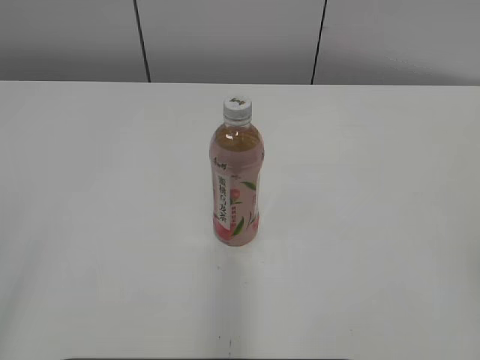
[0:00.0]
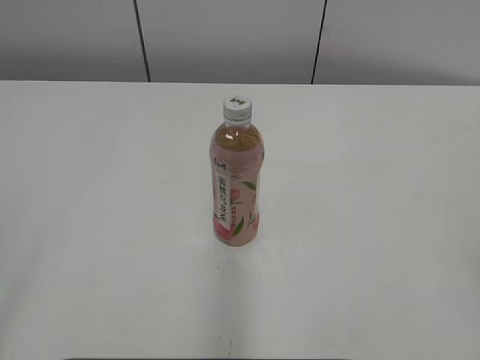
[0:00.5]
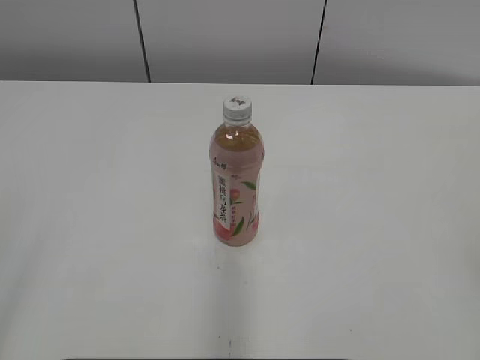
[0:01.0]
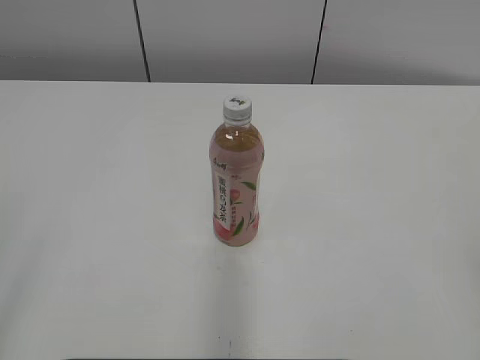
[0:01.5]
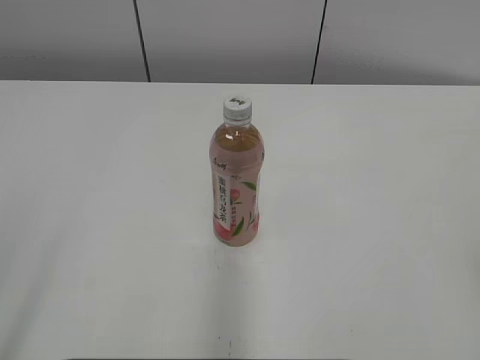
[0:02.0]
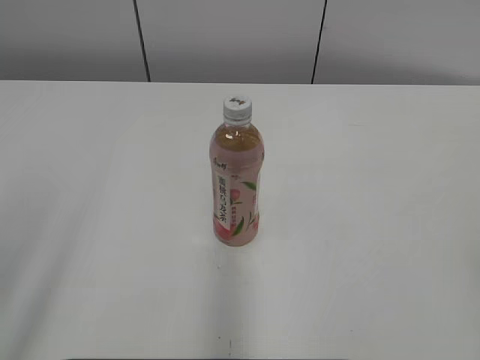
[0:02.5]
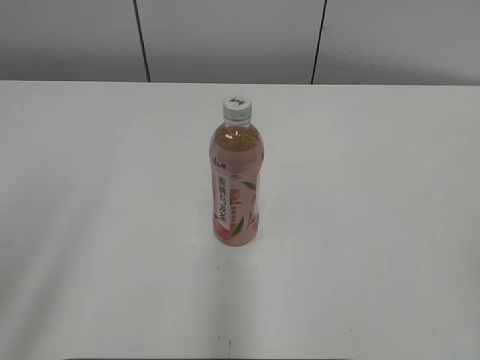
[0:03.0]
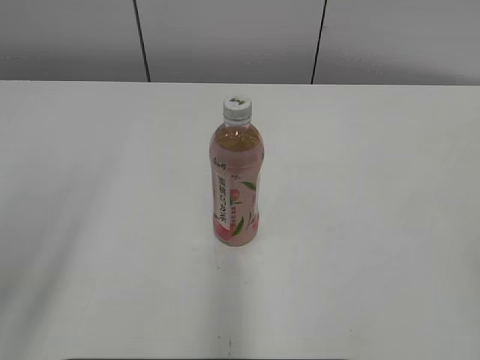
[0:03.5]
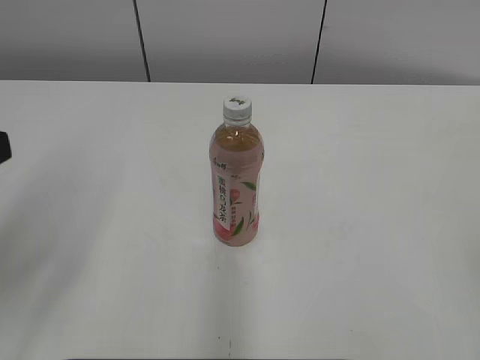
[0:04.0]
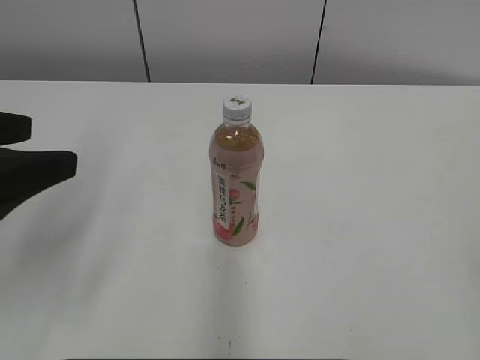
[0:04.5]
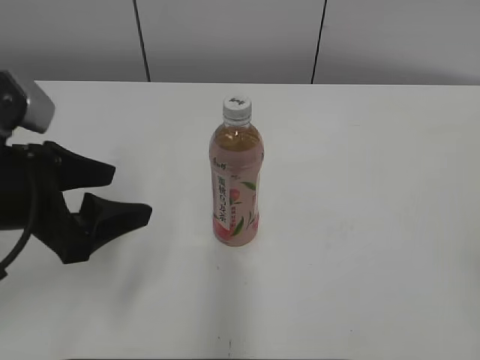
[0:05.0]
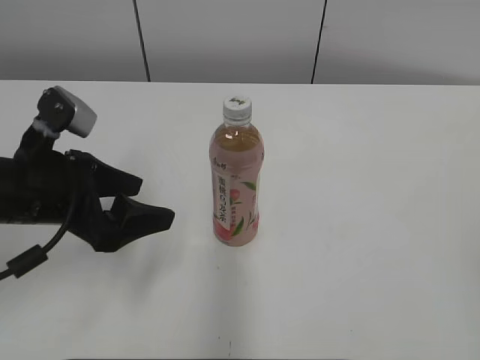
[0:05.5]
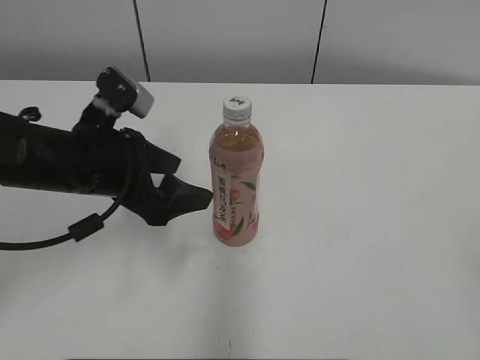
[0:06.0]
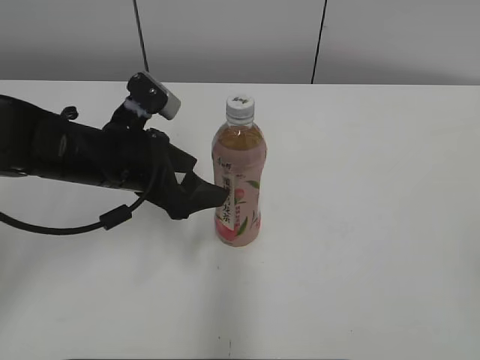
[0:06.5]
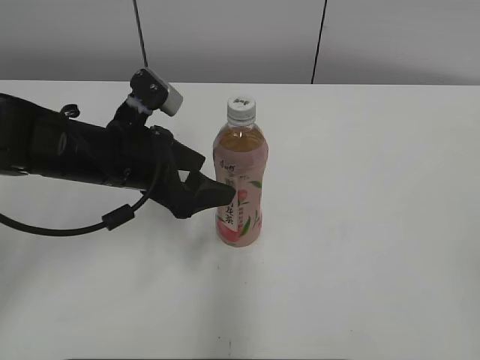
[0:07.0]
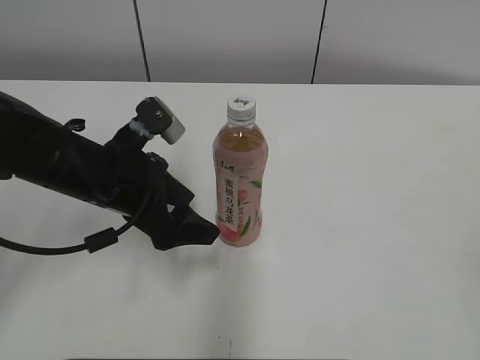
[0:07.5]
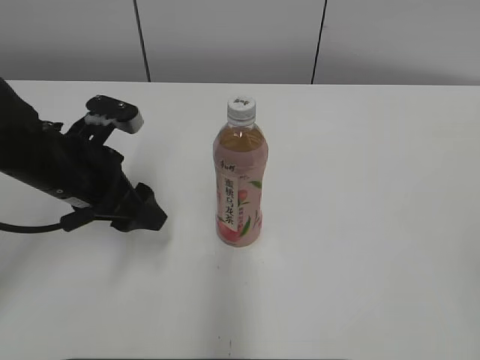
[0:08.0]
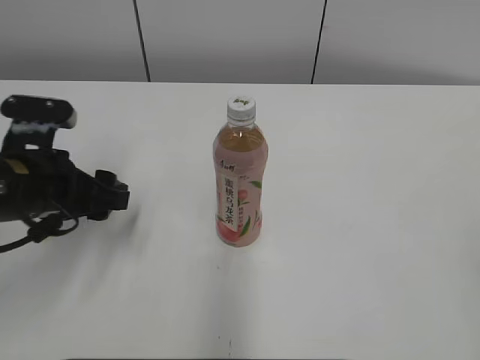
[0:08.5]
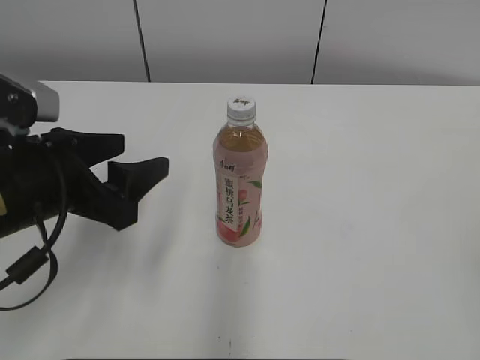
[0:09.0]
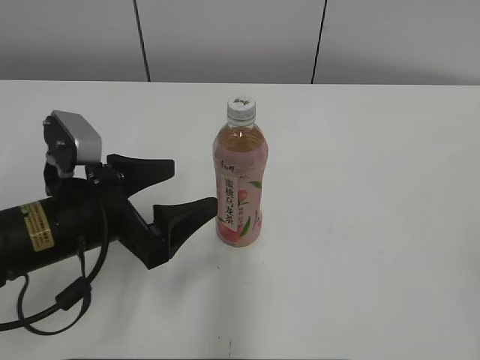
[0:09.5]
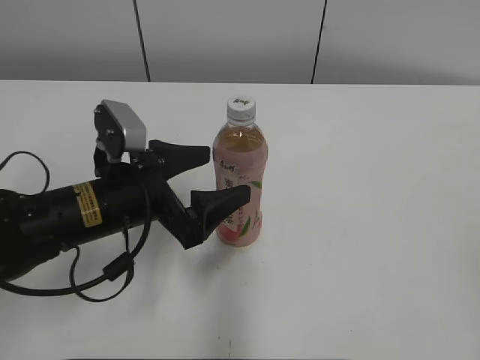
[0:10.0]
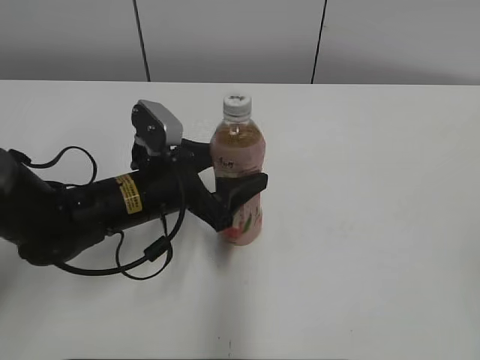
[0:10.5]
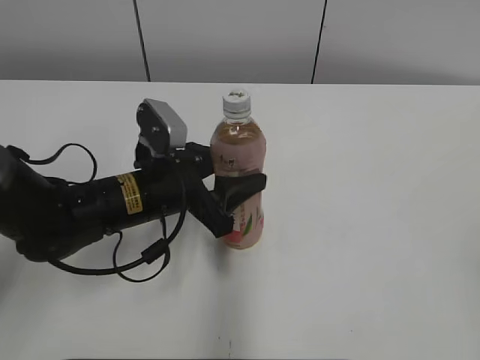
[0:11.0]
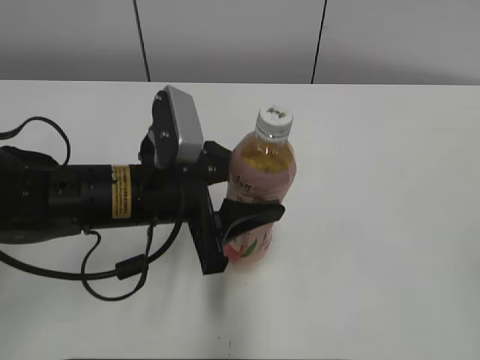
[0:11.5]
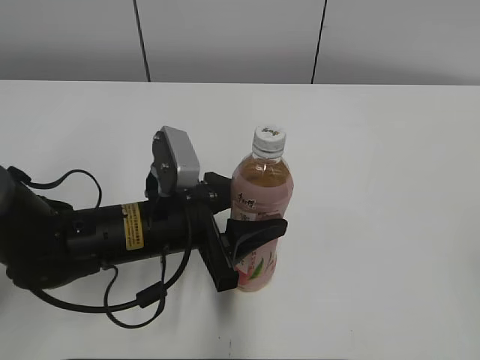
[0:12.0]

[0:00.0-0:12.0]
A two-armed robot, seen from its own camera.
Step, 0:00.0 to 0:11.0: Grab the Peach Oolong Tea with the left hand.
0:02.0 to 0:04.0: The left gripper shifts approximately 15 cm forward.
0:04.0 to 0:06.0: The left gripper is displaced forward, to the right and downward by some 20 cm, and opens its fingers.
0:08.0 to 0:10.0: The left gripper shifts by roughly 5 cm, and opens.
0:10.0 to 0:12.0: The left gripper closes its fingers.

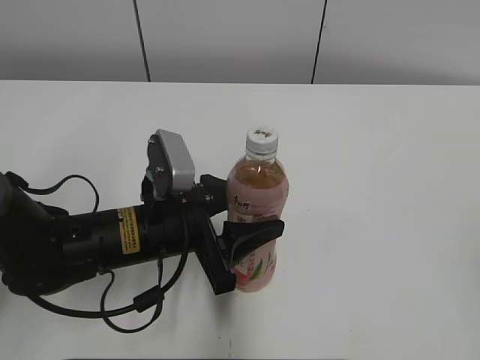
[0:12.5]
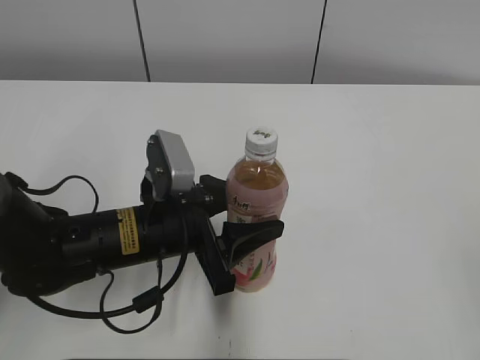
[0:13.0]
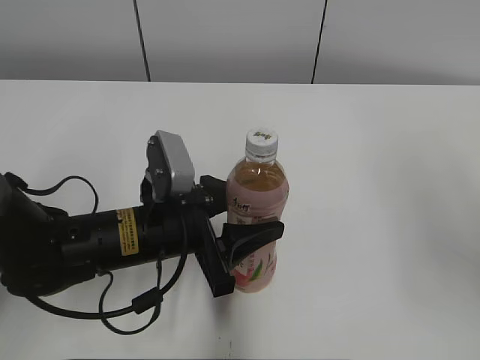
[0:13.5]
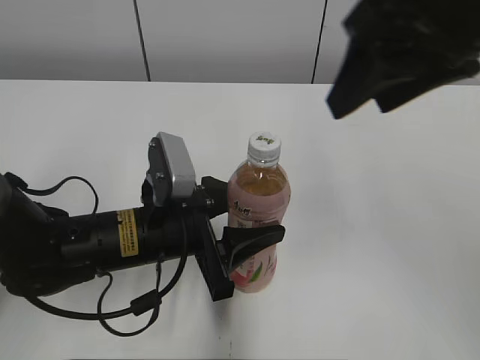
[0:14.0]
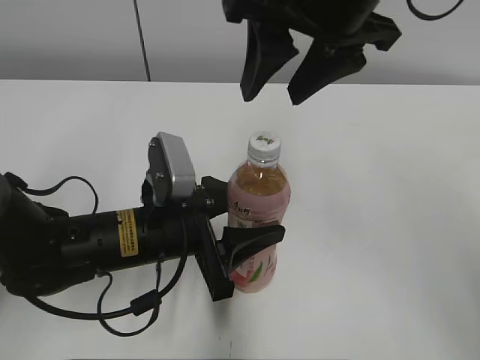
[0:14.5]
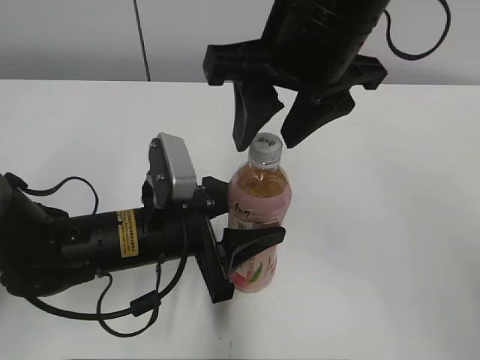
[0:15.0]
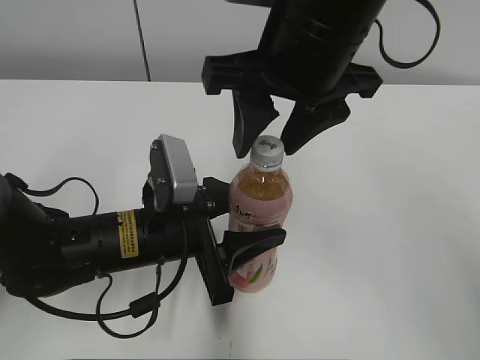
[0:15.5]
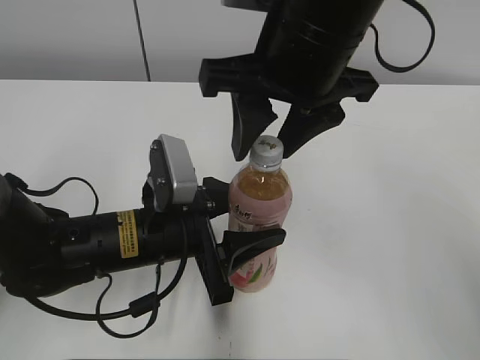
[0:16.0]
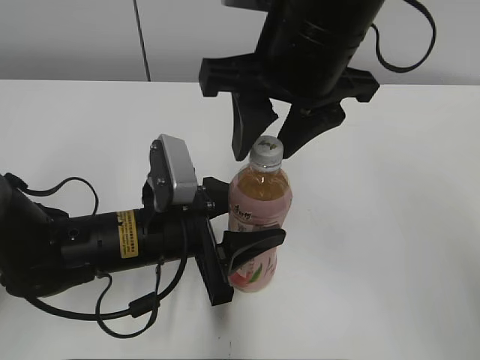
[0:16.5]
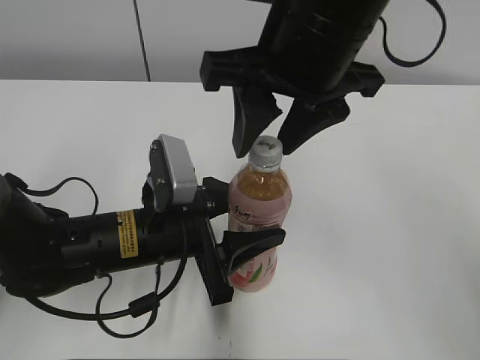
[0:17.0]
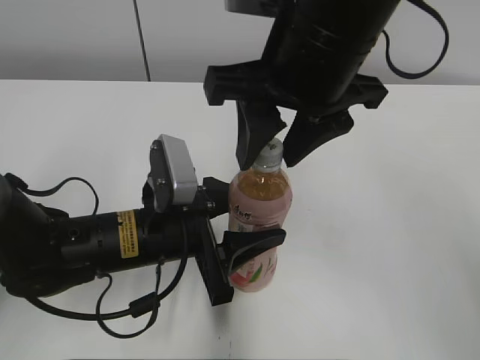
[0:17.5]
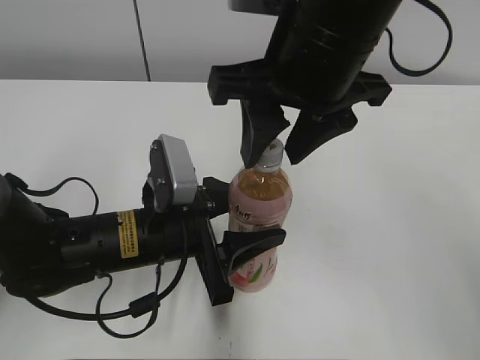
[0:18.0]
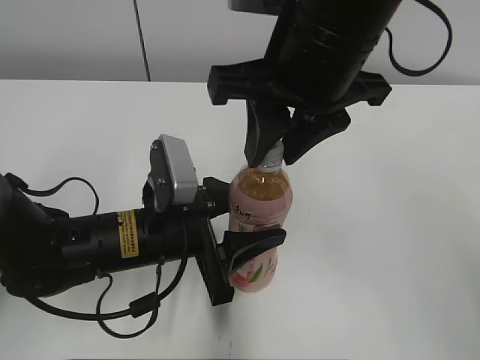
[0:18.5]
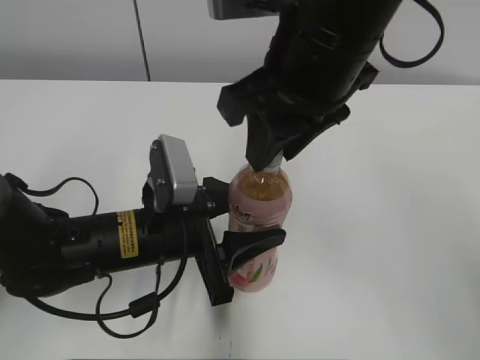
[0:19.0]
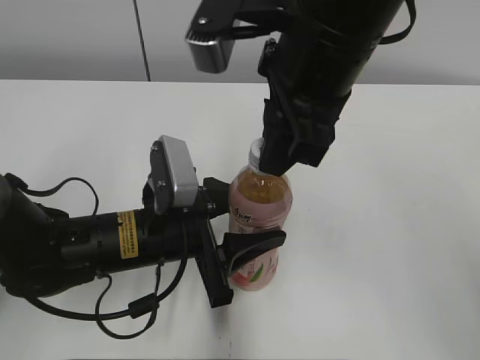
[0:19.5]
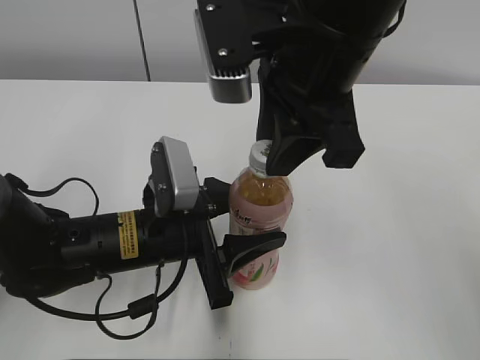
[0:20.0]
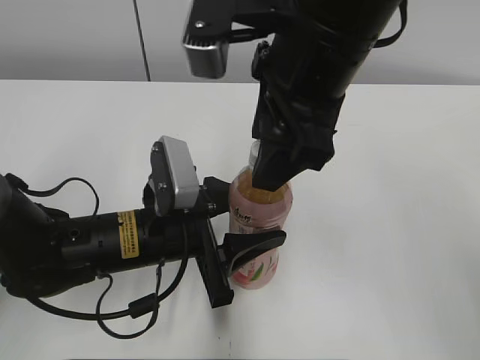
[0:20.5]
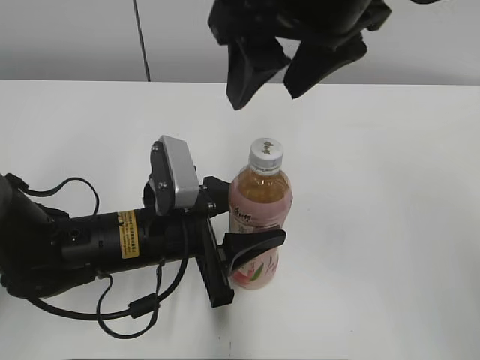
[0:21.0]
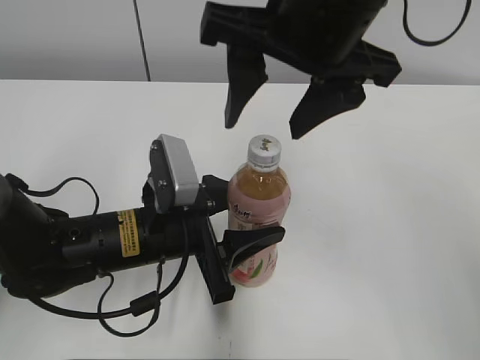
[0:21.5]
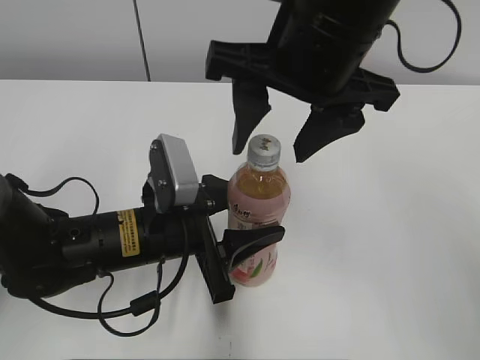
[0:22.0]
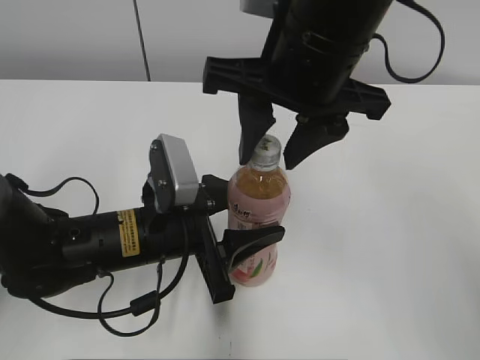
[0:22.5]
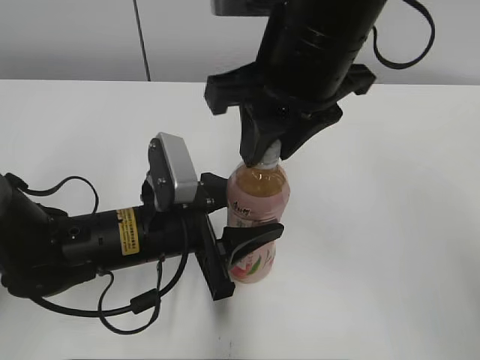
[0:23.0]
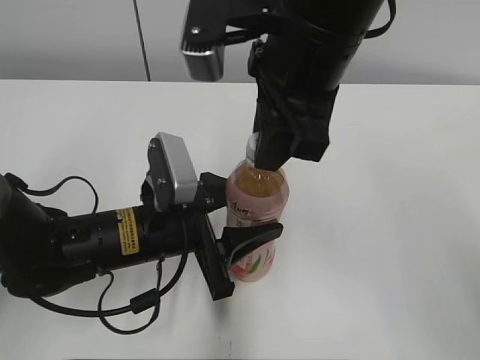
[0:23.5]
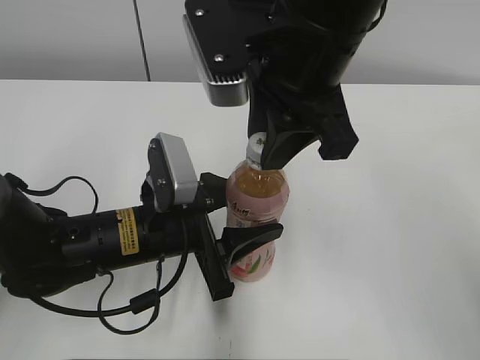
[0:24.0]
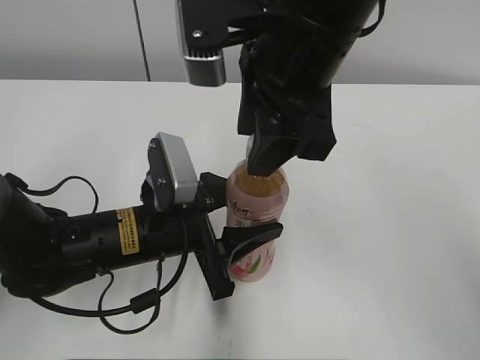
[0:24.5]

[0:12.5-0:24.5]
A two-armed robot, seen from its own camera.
0:12.5 to 0:14.5: The right gripper goes approximately 40 cm forward and to the left.
0:14.5 to 0:16.5: The grippers move only a little.
0:16.5 to 0:18.5: The right gripper closes its fingers.
0:18.5 to 0:20.5: The right gripper opens its fingers.
0:22.5 to 0:24.5: The right gripper closes, then opens again.

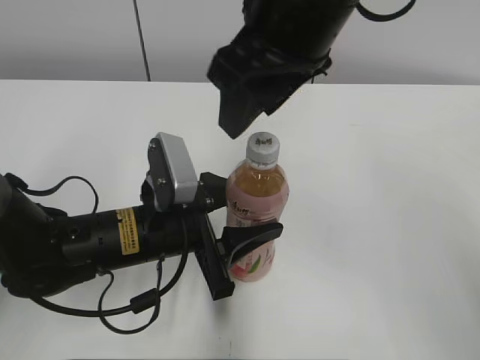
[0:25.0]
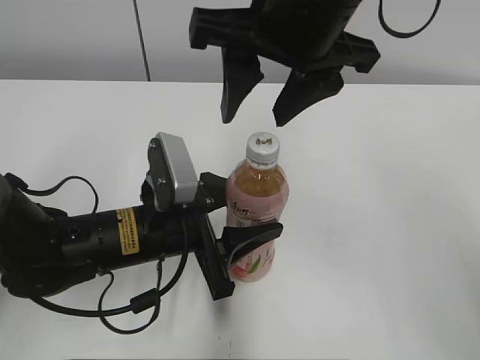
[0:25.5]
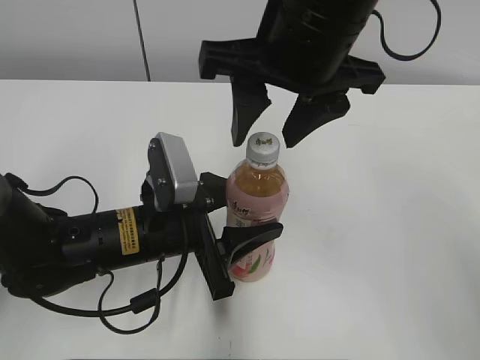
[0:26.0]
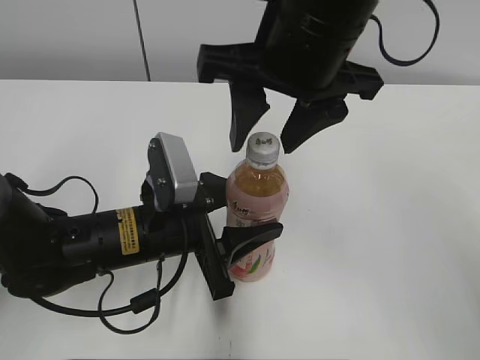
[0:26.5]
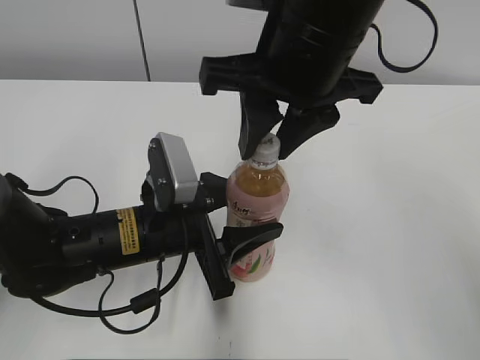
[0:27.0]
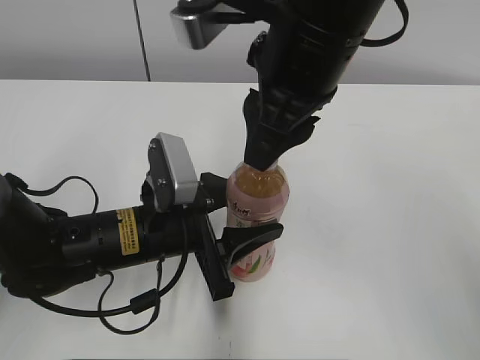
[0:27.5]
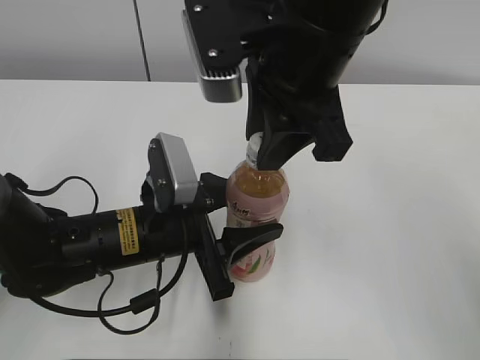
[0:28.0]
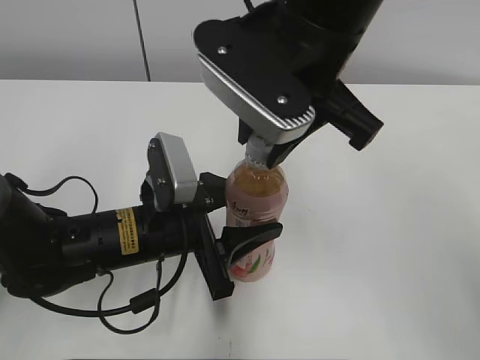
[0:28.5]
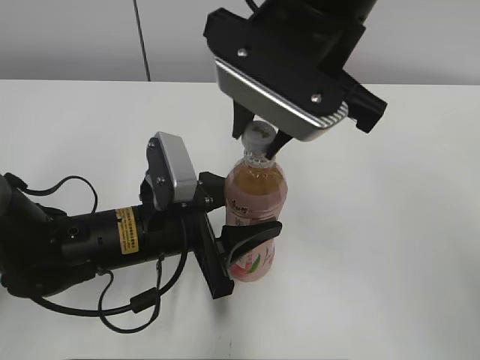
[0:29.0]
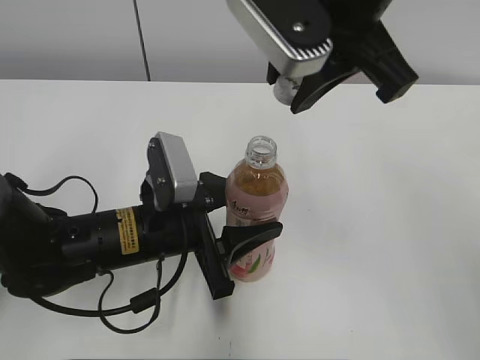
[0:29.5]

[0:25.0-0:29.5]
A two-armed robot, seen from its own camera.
0:25.0 to 0:27.0: The right gripper closes its fingers.
